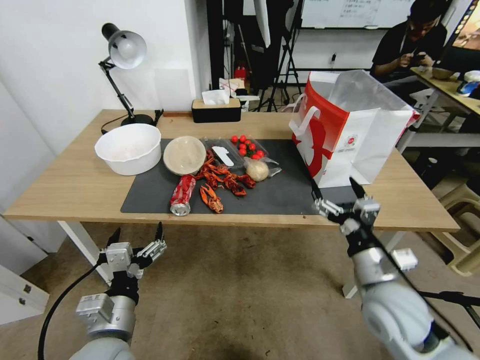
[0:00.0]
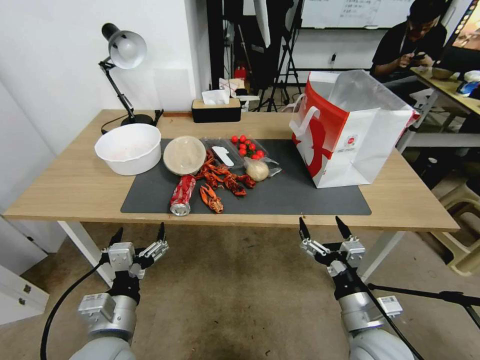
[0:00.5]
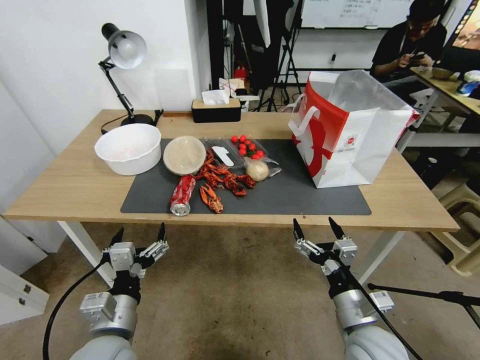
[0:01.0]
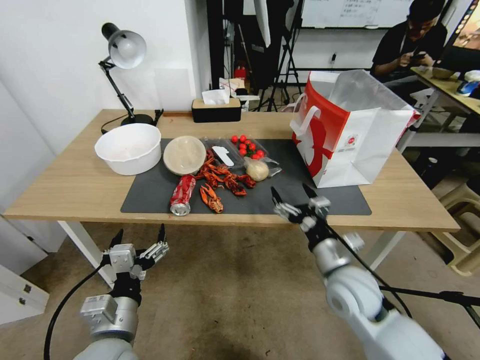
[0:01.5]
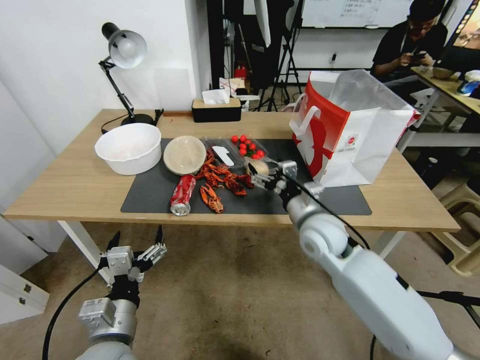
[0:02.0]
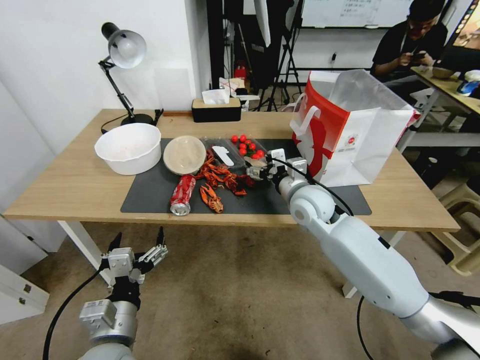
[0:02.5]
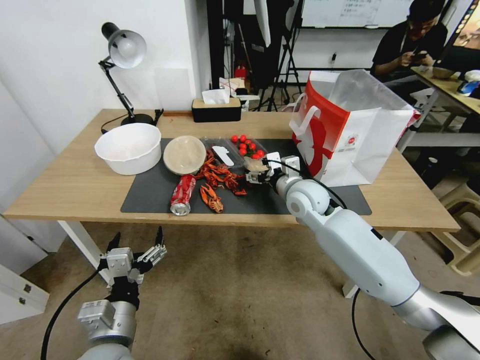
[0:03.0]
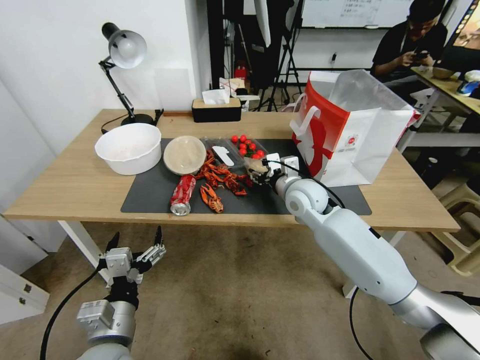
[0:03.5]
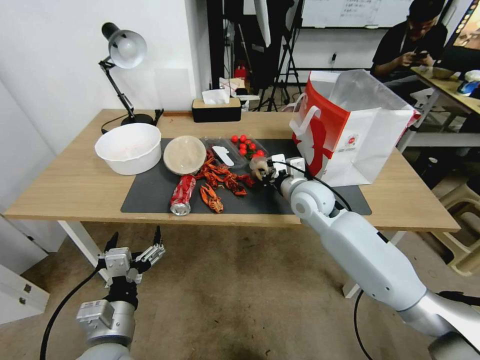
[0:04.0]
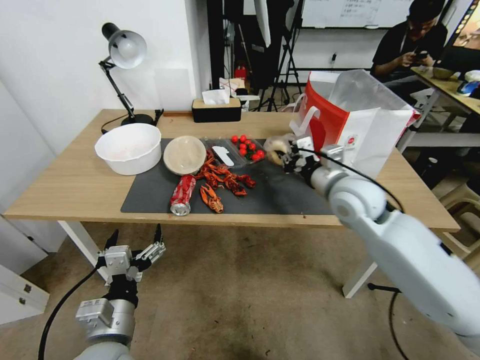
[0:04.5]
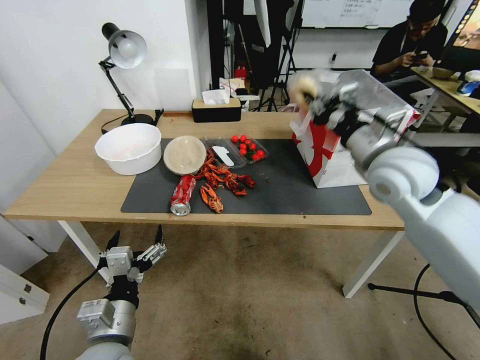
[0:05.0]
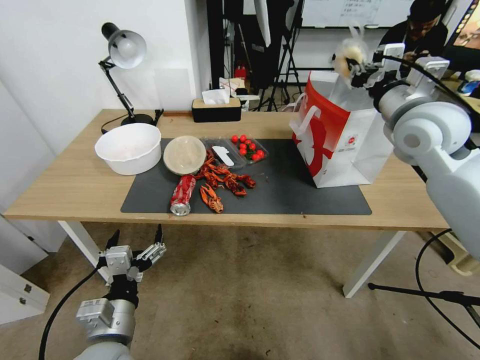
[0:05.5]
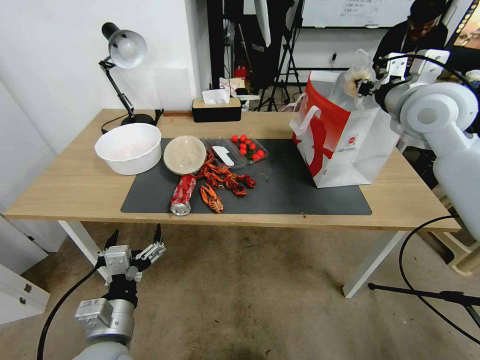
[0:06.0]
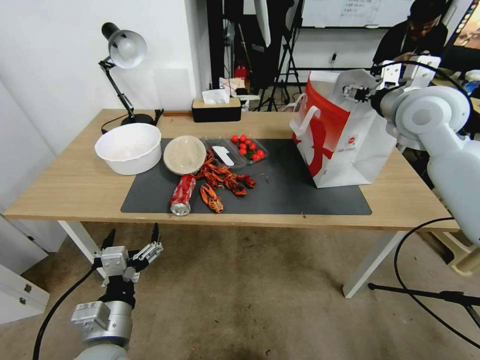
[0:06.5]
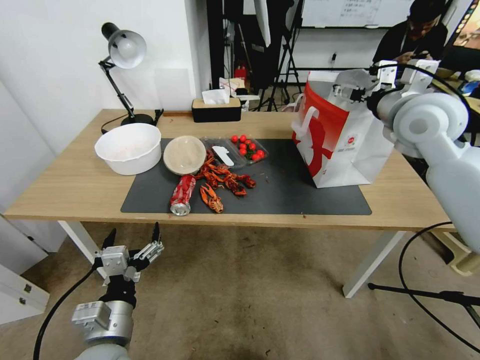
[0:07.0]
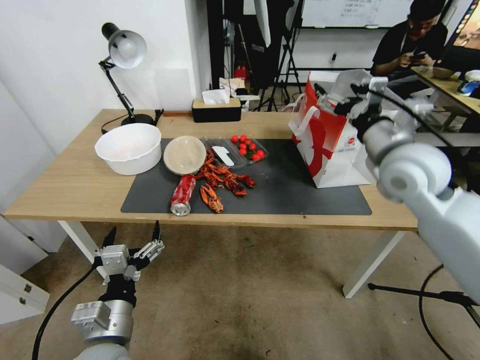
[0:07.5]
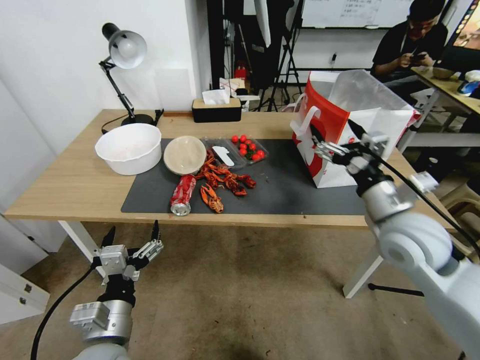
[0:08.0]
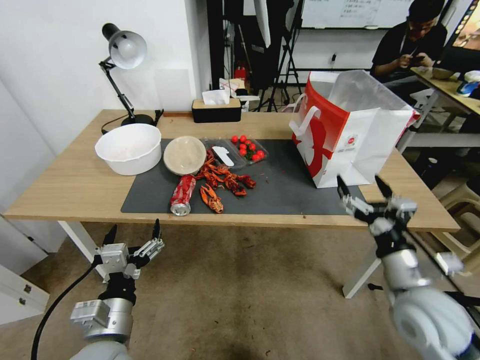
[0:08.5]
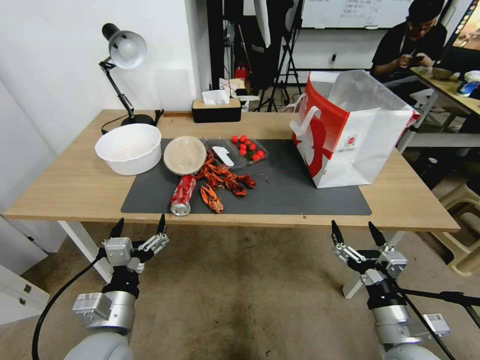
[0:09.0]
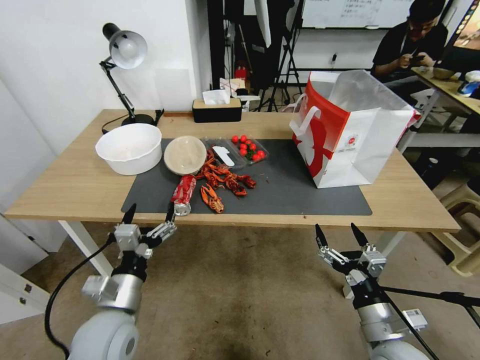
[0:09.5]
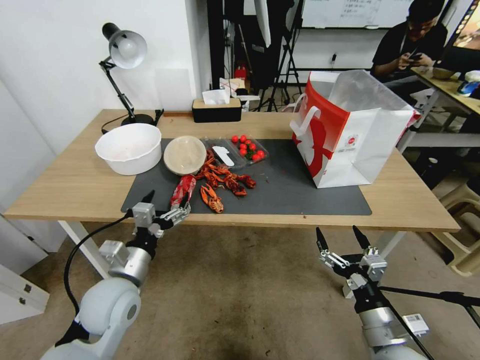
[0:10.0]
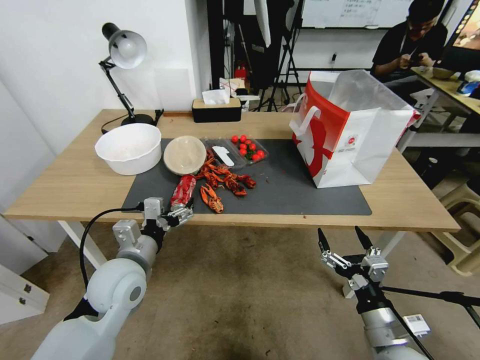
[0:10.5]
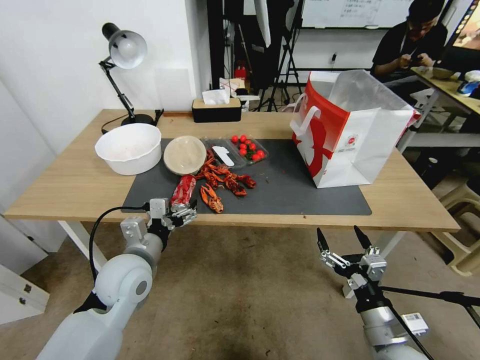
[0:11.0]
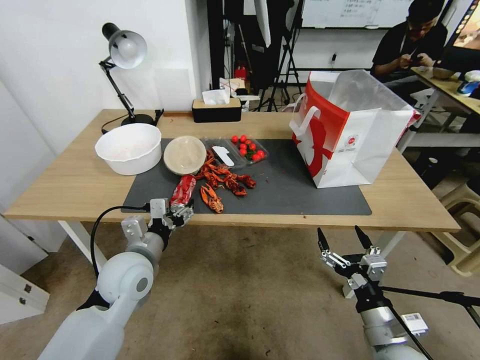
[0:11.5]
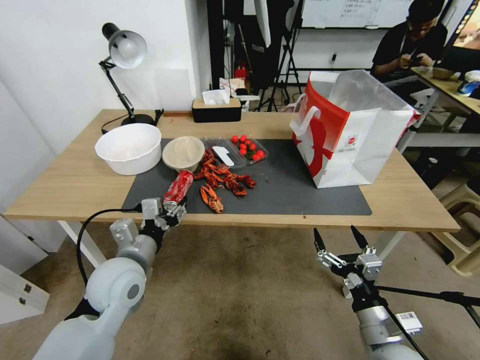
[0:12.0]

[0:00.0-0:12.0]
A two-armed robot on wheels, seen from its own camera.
0:00.0 to 0:02.0: The right gripper travels forward and to the left by roughly 15 cm.
0:02.0 to 0:04.0: The right gripper moves forward, about 10 cm, and closes its fingers.
0:04.0 to 0:06.0: The right gripper shifts roughly 30 cm upward and to the right.
0:06.0 to 0:08.0: The right gripper goes some 20 cm downward and backward, and opens its fingers.
0:08.0 to 0:10.0: The left gripper travels forward by roughly 10 cm. The right gripper travels downward and backward by about 30 cm.
0:10.0 to 0:12.0: The left gripper closes its fingers.

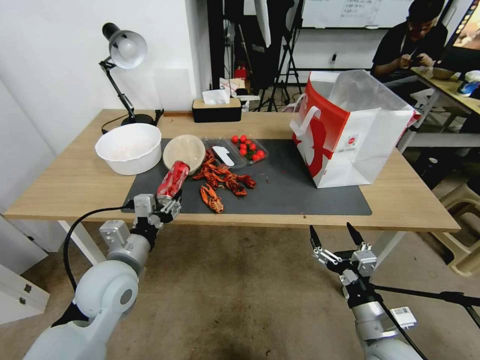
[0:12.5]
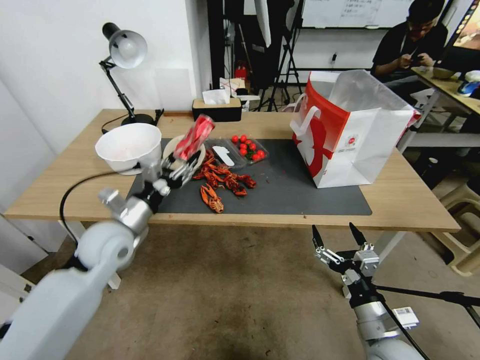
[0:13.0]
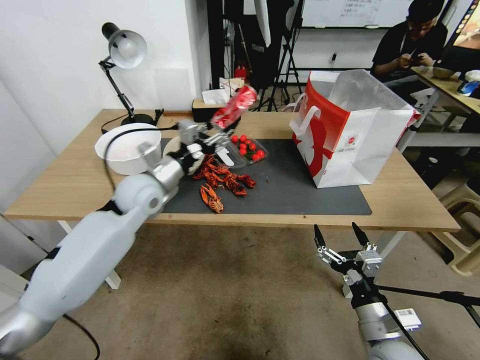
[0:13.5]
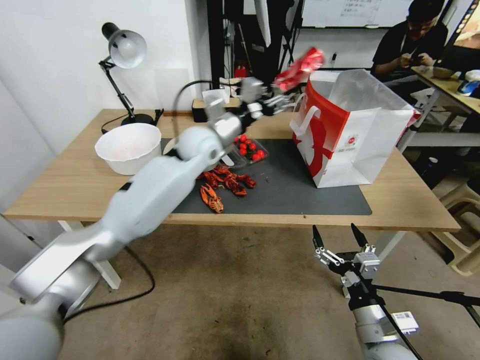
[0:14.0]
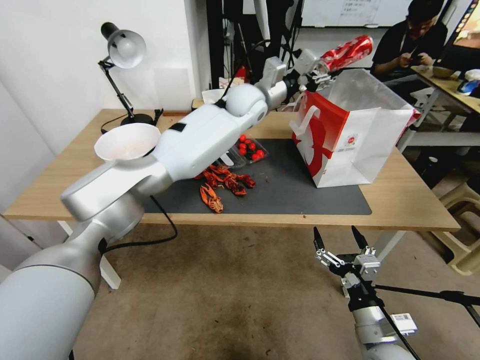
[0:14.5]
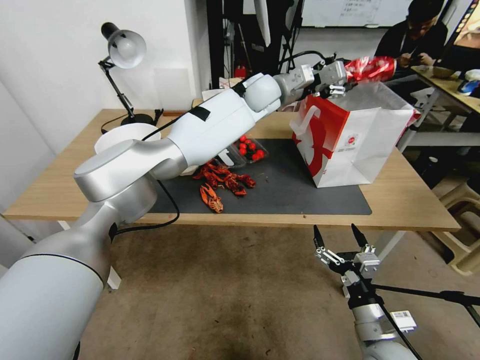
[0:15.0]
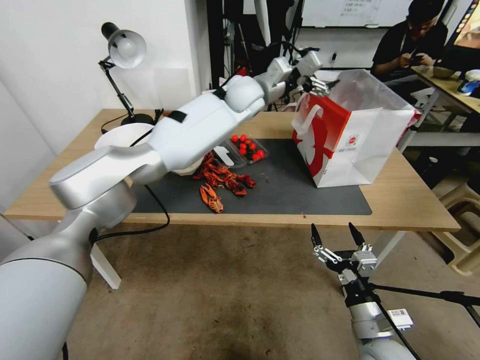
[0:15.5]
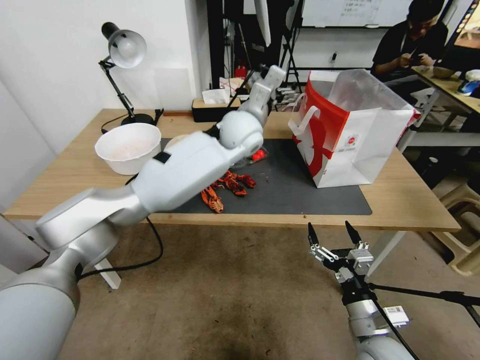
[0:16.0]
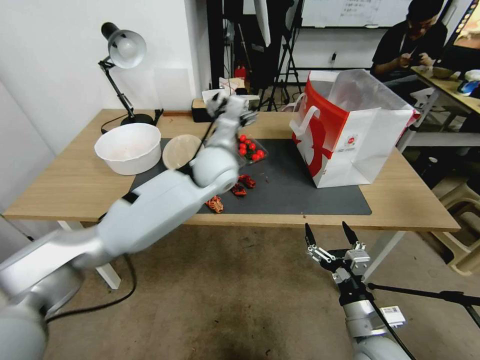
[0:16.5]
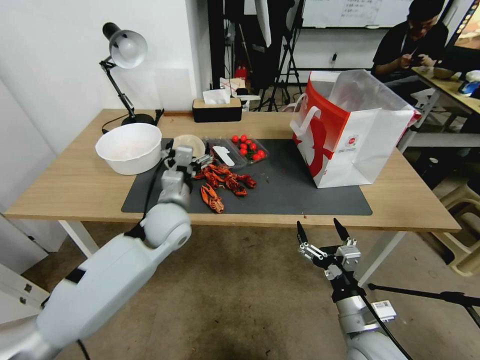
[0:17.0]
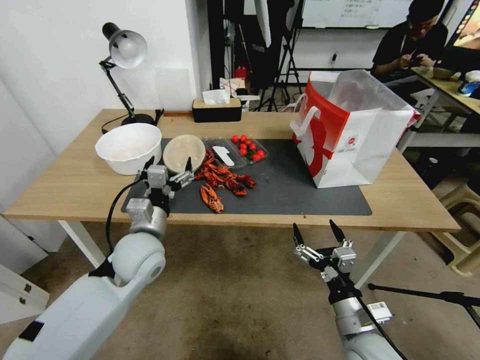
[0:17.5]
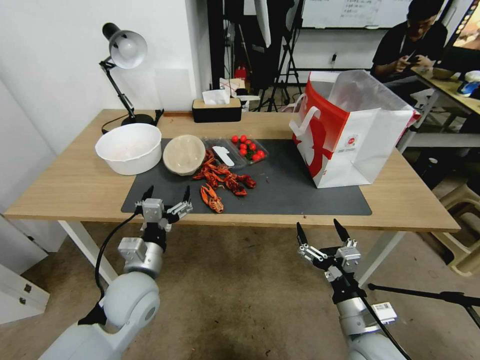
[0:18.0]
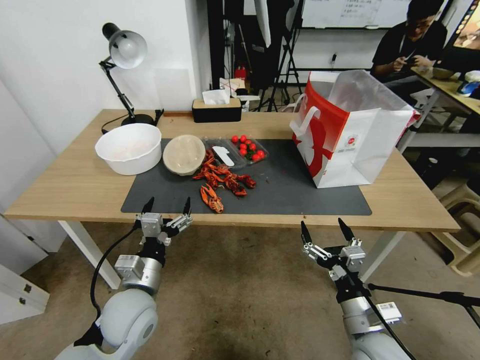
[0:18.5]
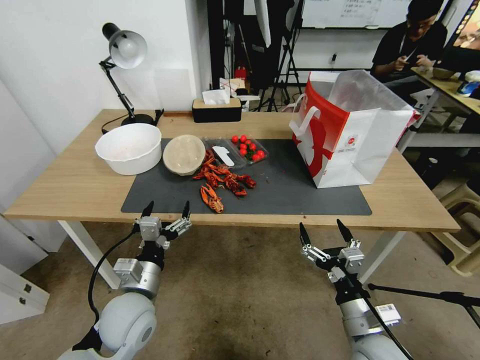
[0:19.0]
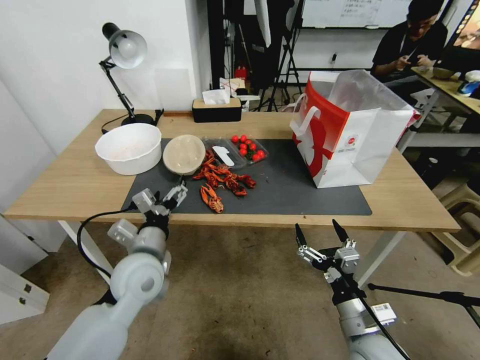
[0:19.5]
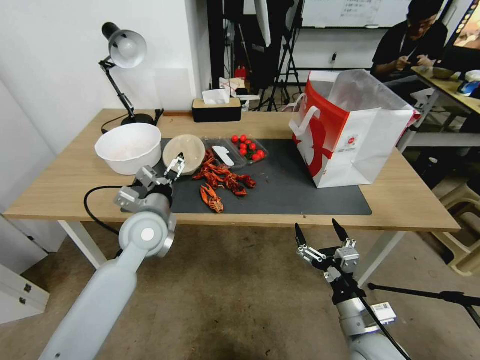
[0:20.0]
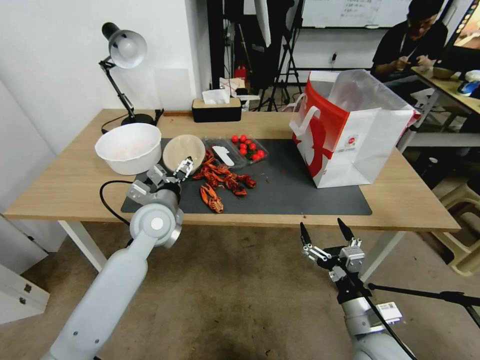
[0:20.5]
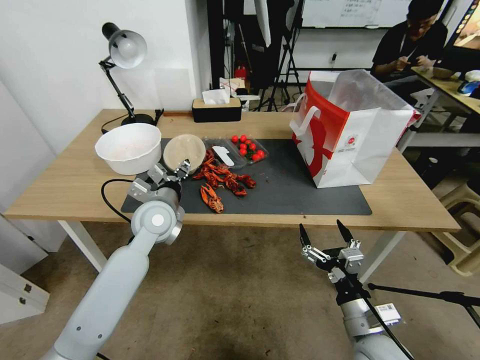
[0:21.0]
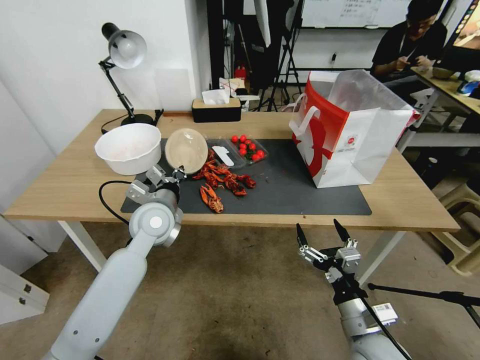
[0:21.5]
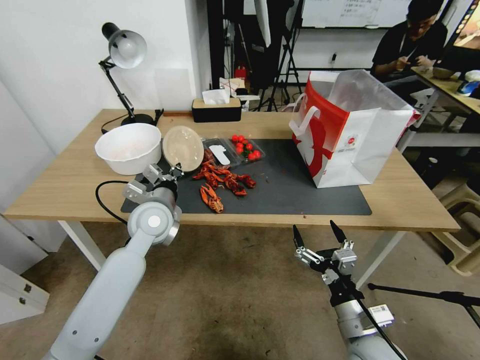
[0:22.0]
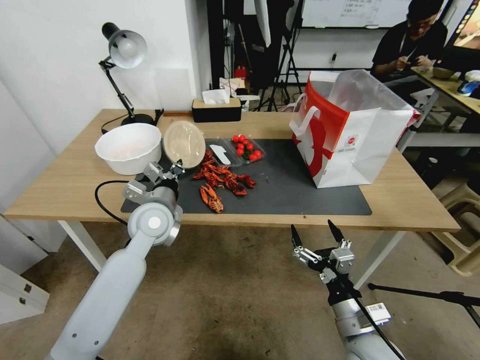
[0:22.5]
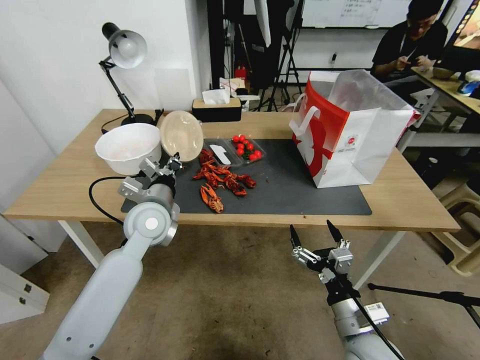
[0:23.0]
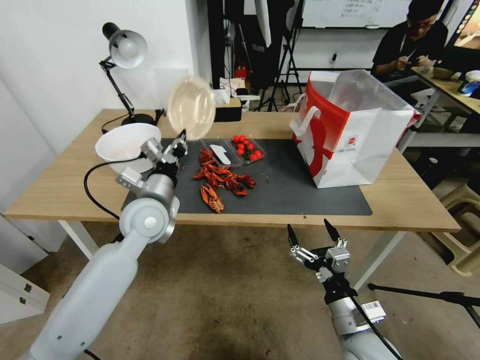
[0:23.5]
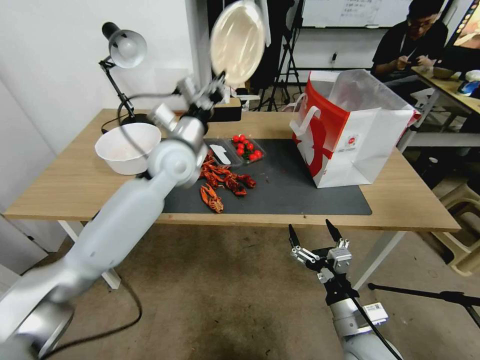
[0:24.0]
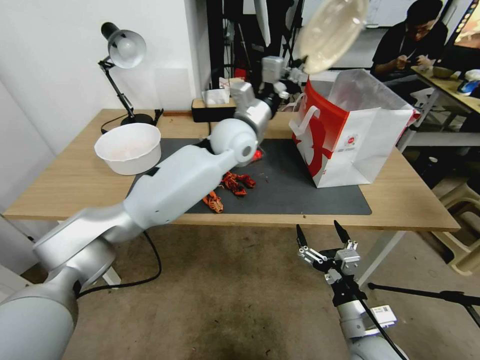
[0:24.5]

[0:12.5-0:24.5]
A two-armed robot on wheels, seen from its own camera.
0:12.5 to 0:14.5: The left gripper heads forward, to the right and upward, covering about 40 cm.
0:14.5 to 0:16.5: The left gripper travels backward, downward and to the left by about 15 cm, and opens its fingers.
0:16.5 to 0:18.5: The left gripper moves backward, downward and to the left, some 35 cm.
0:18.5 to 0:20.5: The left gripper shifts about 20 cm forward and upward.
0:20.5 to 0:22.5: The left gripper closes.
0:22.5 to 0:24.5: The left gripper heads to the right, upward and forward, covering approximately 25 cm.

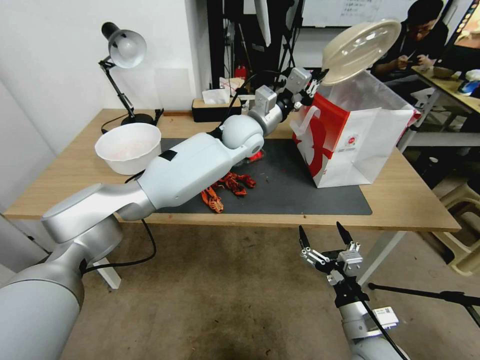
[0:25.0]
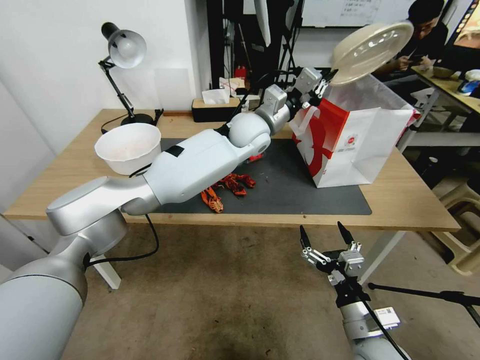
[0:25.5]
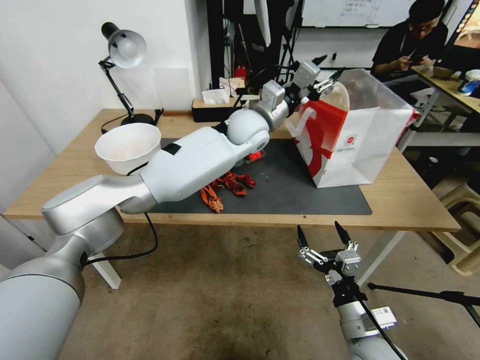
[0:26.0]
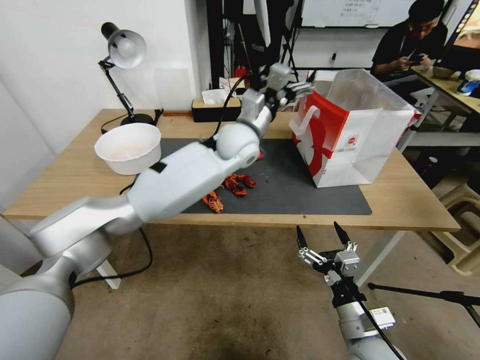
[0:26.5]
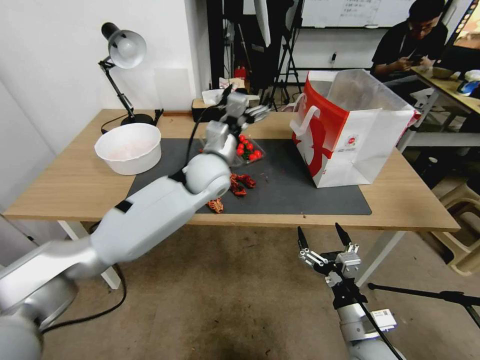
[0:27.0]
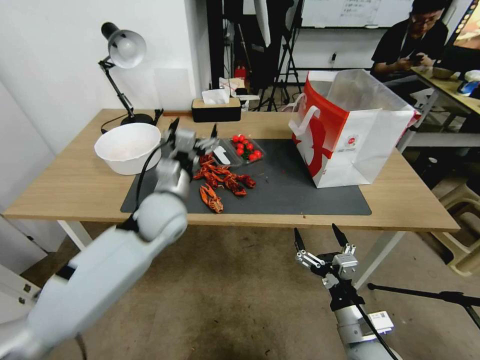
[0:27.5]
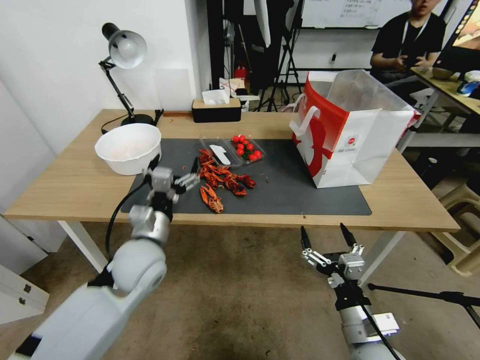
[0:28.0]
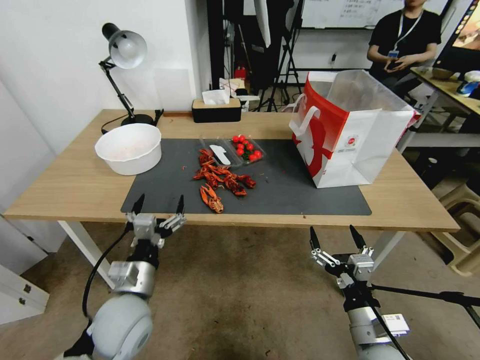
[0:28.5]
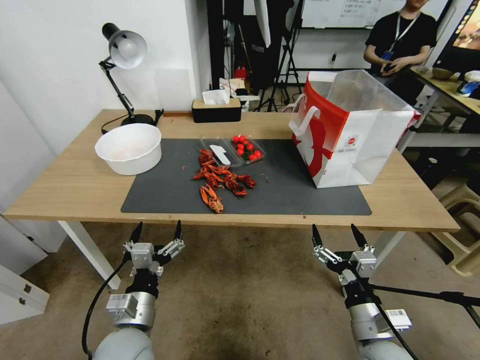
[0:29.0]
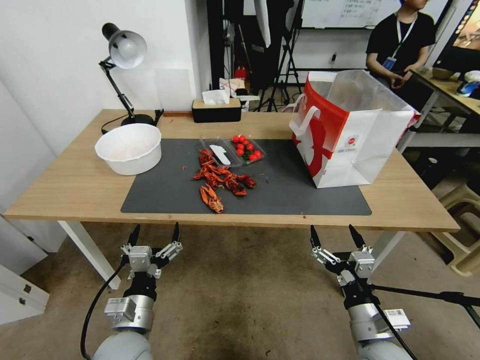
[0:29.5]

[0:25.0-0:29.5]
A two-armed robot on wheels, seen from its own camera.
0:25.0 to 0:27.0: The left gripper heads backward, to the left and downward, covering roughly 15 cm, and opens up.
0:27.0 to 0:29.5: The left gripper shifts about 40 cm backward, downward and to the left.